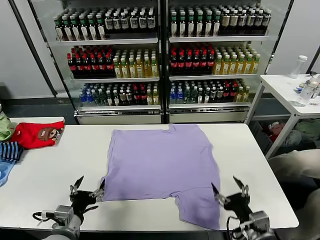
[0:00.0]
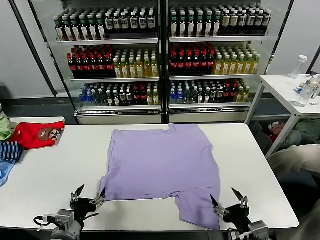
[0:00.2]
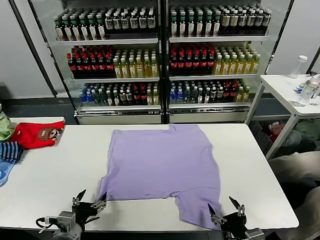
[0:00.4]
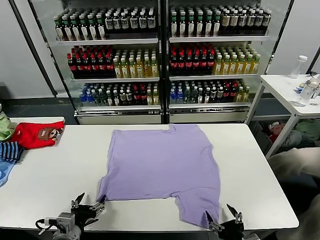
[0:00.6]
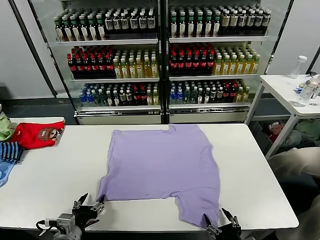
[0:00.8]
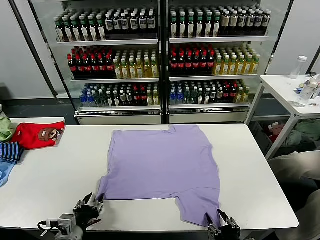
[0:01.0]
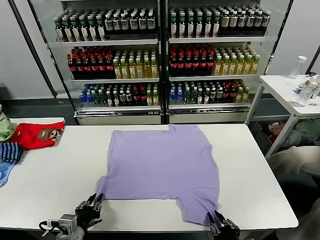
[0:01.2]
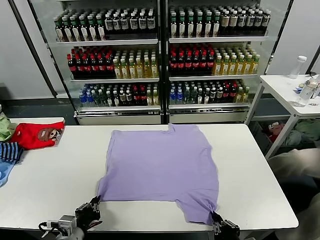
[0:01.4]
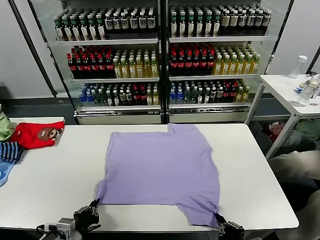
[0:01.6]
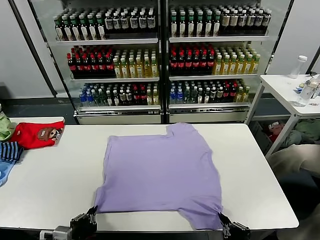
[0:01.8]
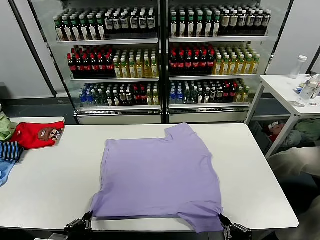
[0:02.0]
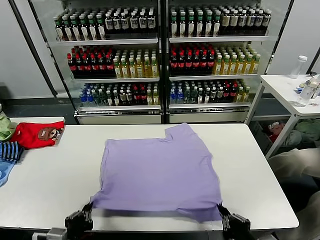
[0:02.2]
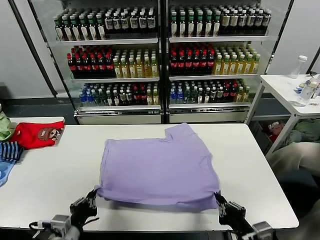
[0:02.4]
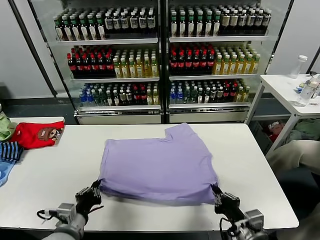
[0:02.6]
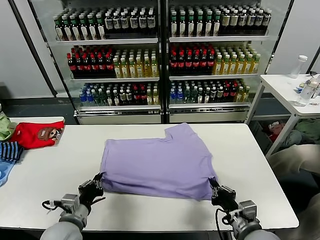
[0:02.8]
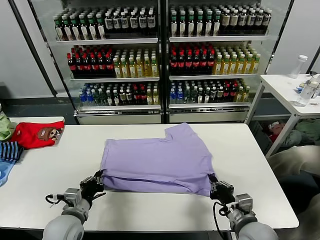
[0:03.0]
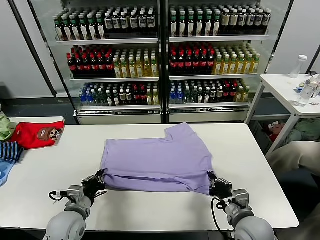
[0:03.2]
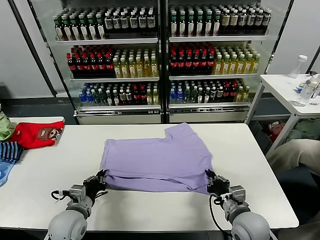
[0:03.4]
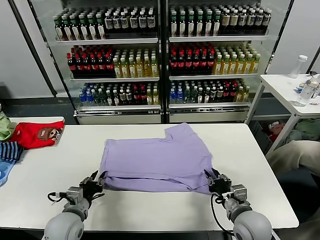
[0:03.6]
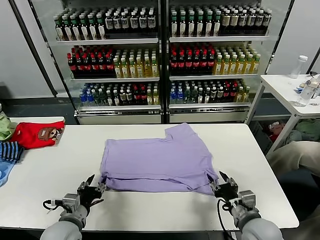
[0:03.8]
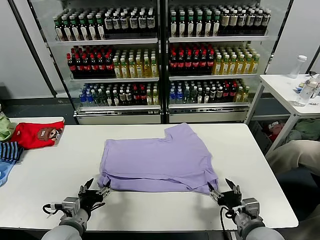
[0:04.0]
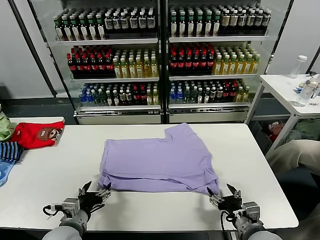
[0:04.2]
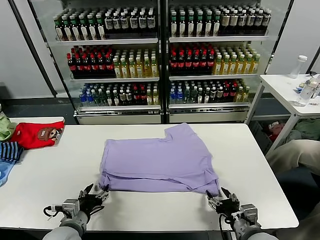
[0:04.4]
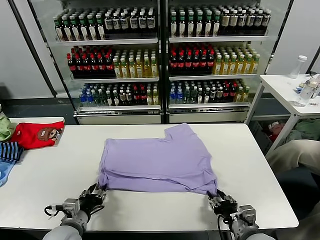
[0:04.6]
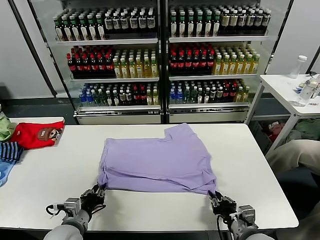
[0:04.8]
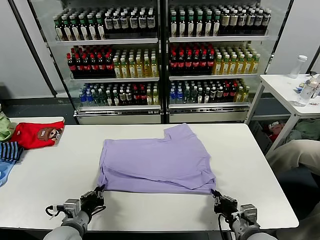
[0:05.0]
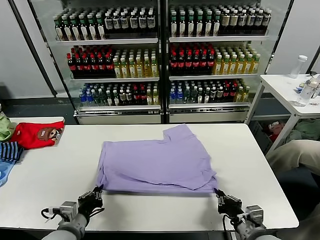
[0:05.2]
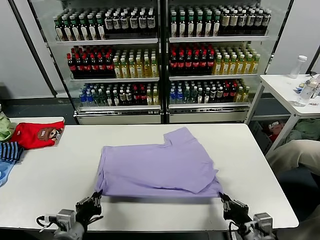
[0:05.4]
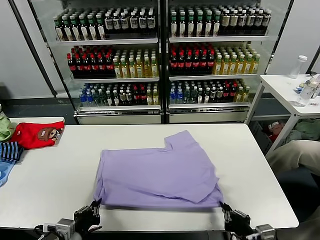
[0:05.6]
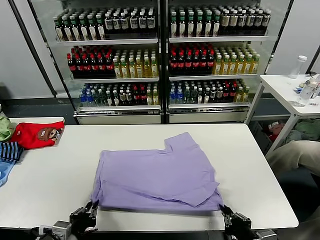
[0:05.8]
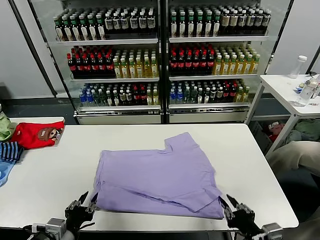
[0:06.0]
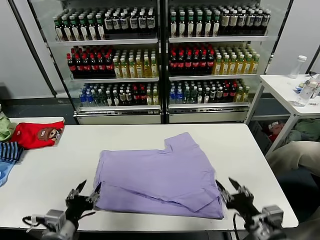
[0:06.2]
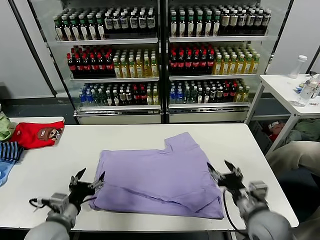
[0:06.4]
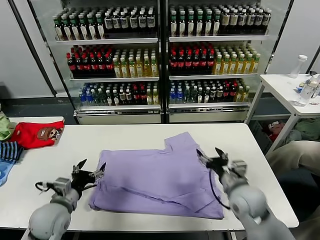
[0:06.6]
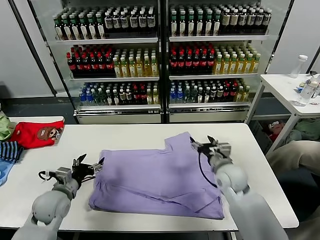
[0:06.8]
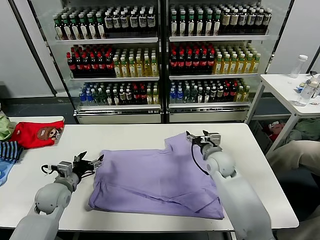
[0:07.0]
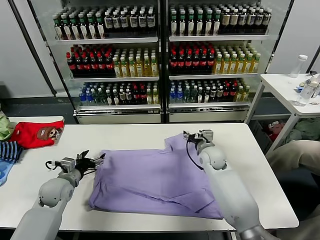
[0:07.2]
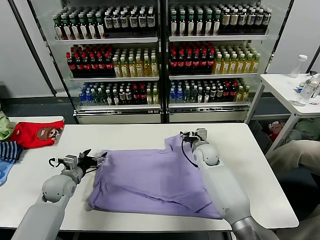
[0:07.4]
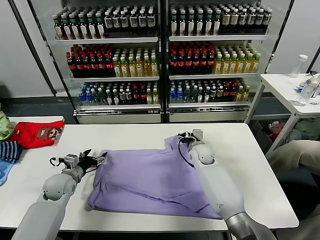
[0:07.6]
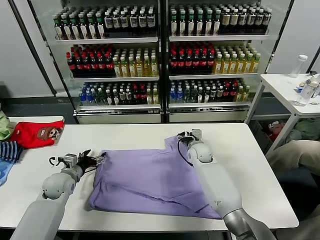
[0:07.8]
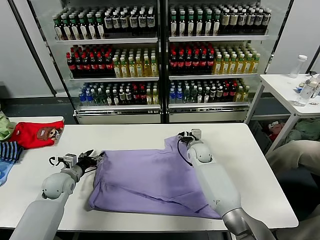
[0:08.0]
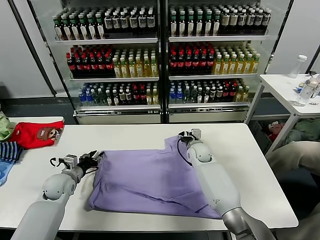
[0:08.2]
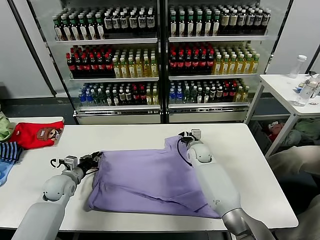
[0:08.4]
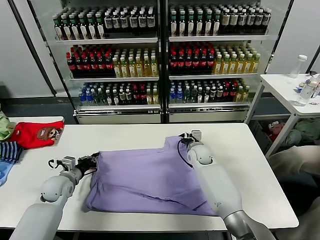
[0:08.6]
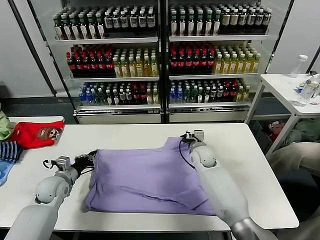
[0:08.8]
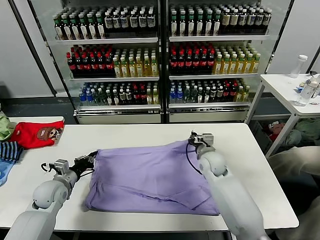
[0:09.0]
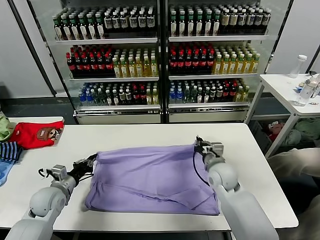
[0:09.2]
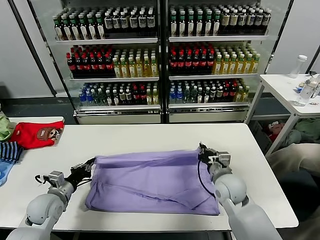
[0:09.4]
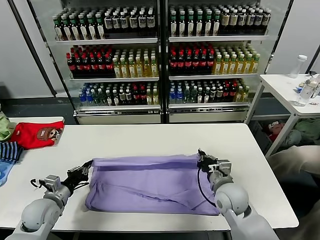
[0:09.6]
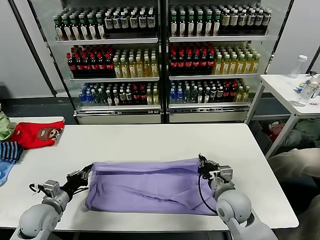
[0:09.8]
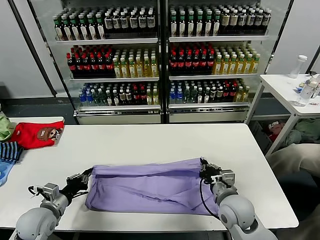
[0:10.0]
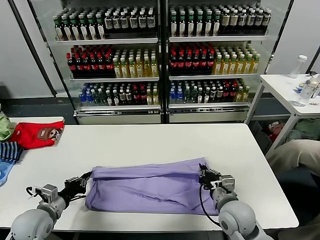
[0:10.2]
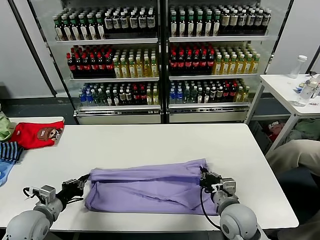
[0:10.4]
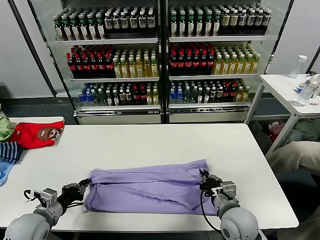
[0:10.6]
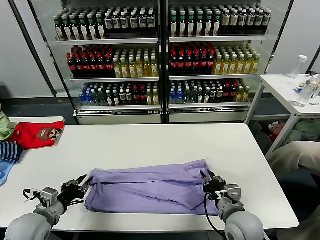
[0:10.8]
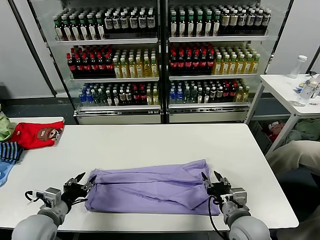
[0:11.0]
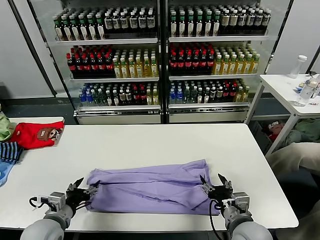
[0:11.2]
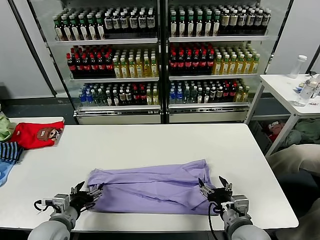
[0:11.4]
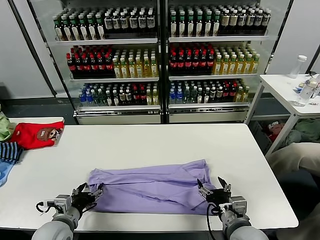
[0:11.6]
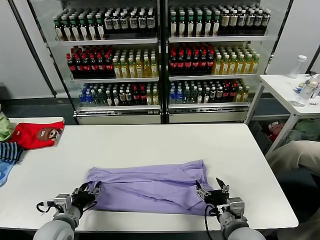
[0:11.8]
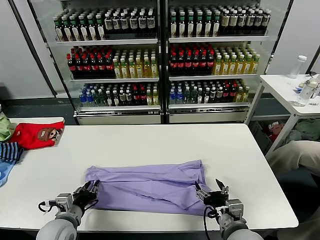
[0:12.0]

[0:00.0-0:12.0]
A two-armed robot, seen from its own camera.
Task of the whole recording: fold and organize the clothes.
Step, 0:00.0 to 0:01.4: use both grippers simultaneously to clamp the lower edge of the clothing fabric.
Step, 0:01.6 to 0:03.8: use both grippers to drag the lower edge of the fabric forward and fold it over the upper edge.
Step, 0:04.0 to 0:06.0: Drag the clothes downward with both gripper.
Step, 0:06.2 to 0:08.4: use both grippers simultaneously to clamp the upper edge of the clothing fabric.
Step, 0:08.8 to 0:10.8: use both grippers to drag the upper edge of the fabric backward and fold it over the lower edge.
0:01.6 to 0:03.0: Both grippers move forward, approximately 10 cm.
0:03.0 to 0:04.4: The right gripper opens its fingers; the left gripper opens its fingers.
0:04.4 to 0:06.0: The left gripper goes about 5 cm backward, and closes, then opens again. The right gripper goes roughly 10 cm upward and backward, and closes, then reopens.
0:06.0 to 0:07.6: The right gripper goes some 40 cm forward, and opens up, while the left gripper is displaced forward by some 25 cm, and opens its fingers.
0:07.6 to 0:09.0: The right gripper travels backward by about 10 cm, and closes. Meanwhile the left gripper closes its fingers.
0:09.0 to 0:10.4: The left gripper is displaced backward by about 10 cm. The right gripper heads backward, covering some 20 cm.
0:10.4 to 0:12.0: The left gripper shifts some 10 cm to the right, and opens its fingers. The right gripper travels backward by about 5 cm, and opens.

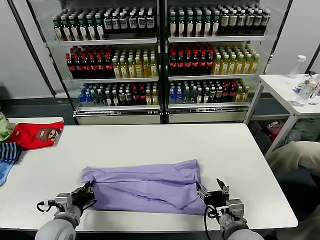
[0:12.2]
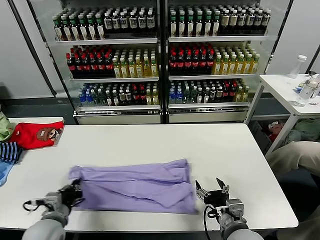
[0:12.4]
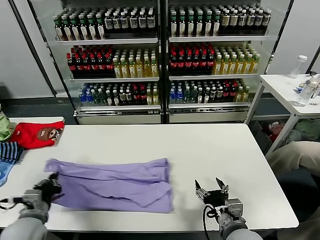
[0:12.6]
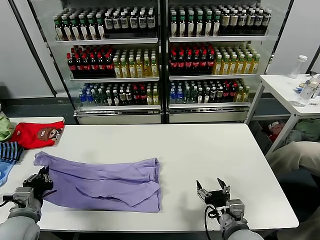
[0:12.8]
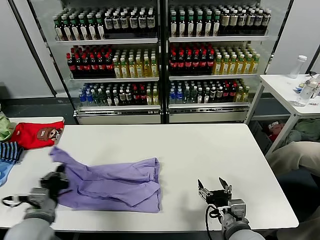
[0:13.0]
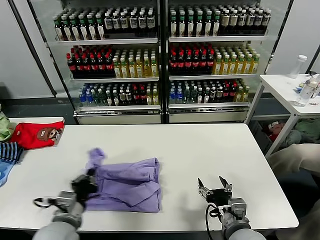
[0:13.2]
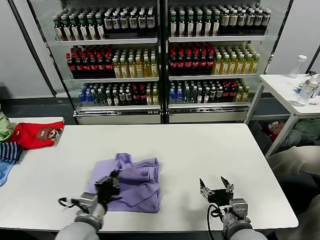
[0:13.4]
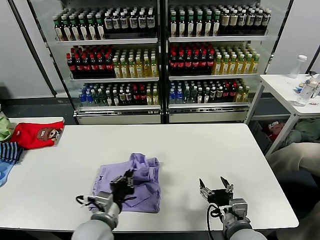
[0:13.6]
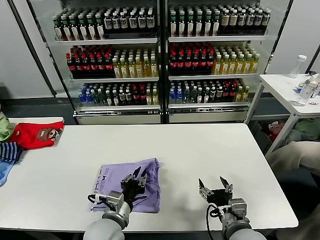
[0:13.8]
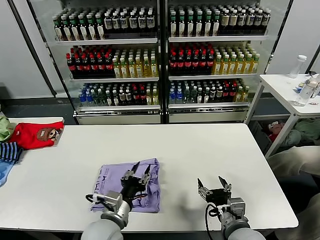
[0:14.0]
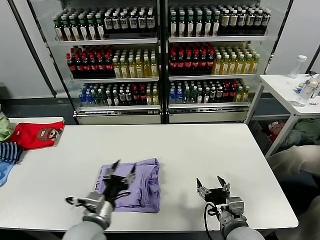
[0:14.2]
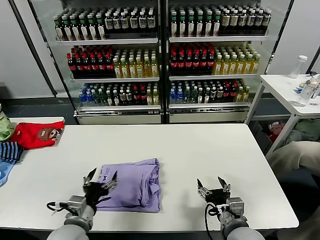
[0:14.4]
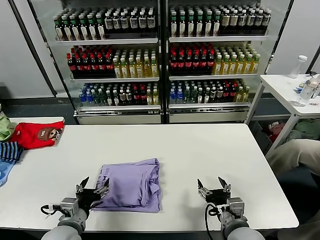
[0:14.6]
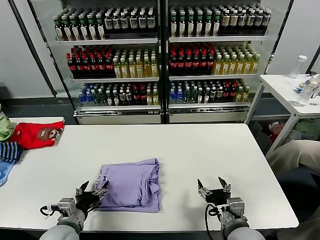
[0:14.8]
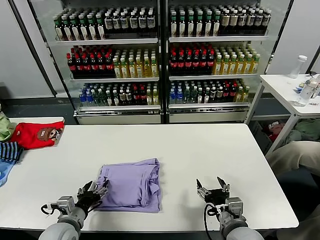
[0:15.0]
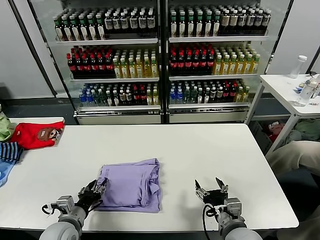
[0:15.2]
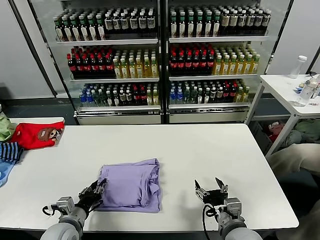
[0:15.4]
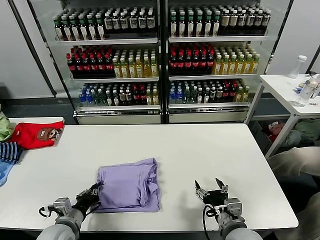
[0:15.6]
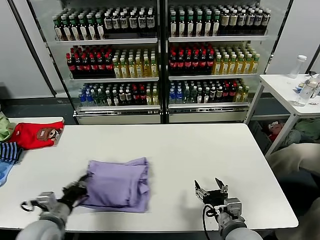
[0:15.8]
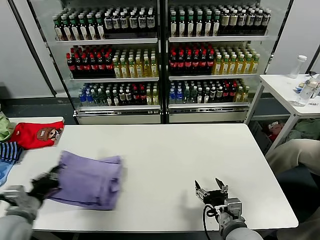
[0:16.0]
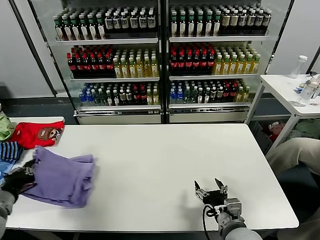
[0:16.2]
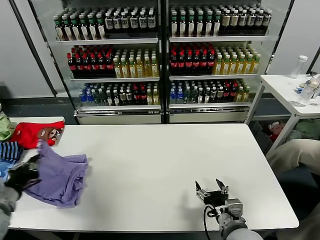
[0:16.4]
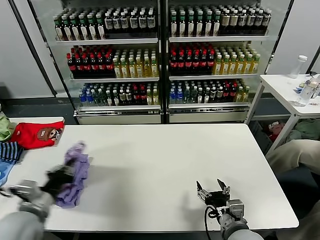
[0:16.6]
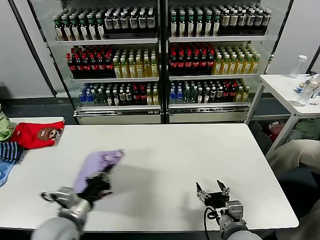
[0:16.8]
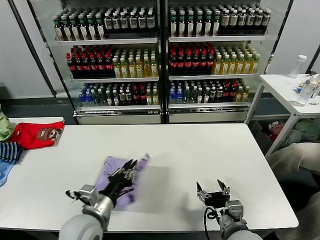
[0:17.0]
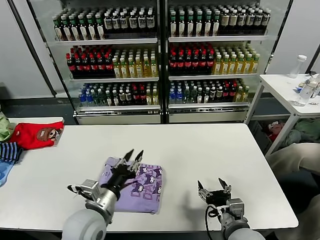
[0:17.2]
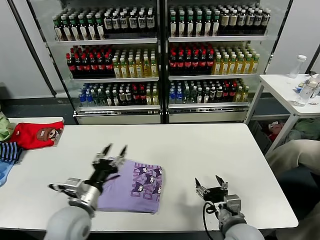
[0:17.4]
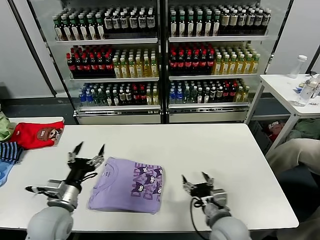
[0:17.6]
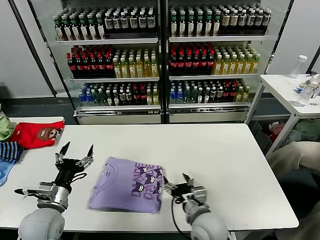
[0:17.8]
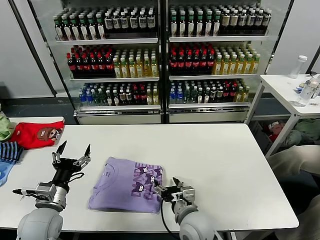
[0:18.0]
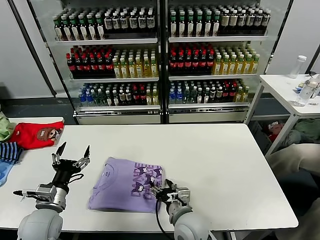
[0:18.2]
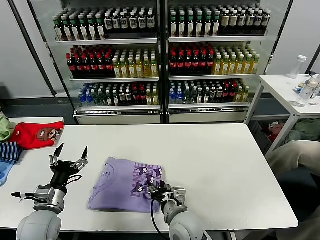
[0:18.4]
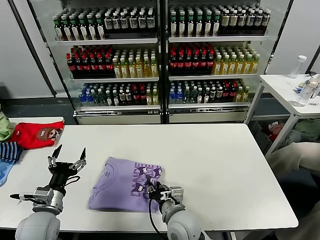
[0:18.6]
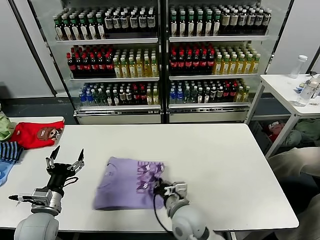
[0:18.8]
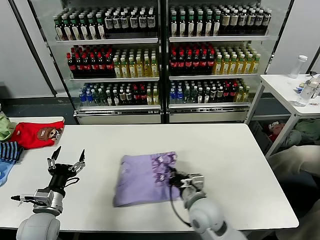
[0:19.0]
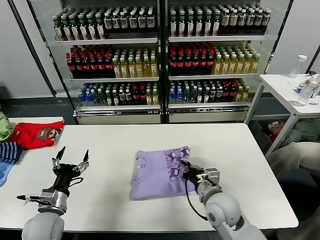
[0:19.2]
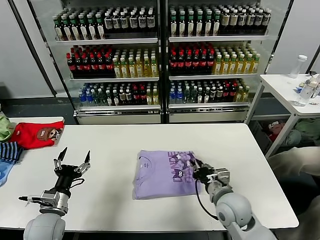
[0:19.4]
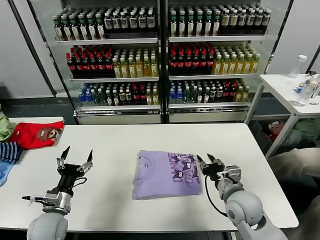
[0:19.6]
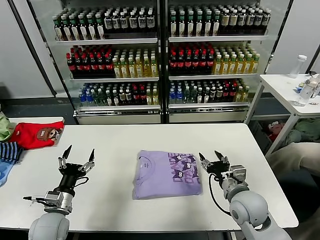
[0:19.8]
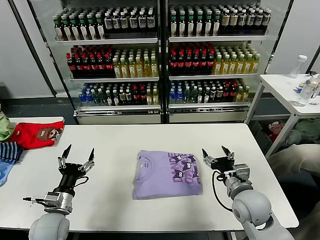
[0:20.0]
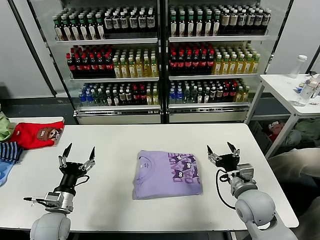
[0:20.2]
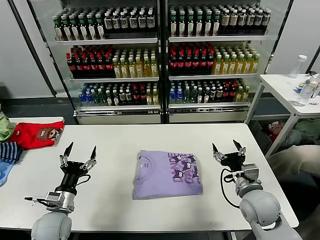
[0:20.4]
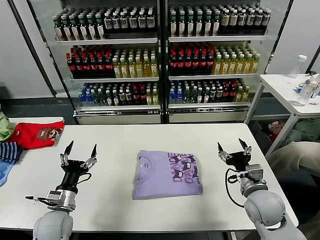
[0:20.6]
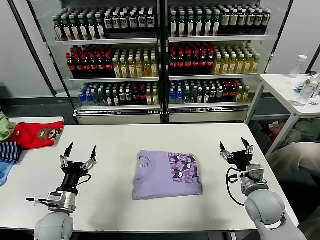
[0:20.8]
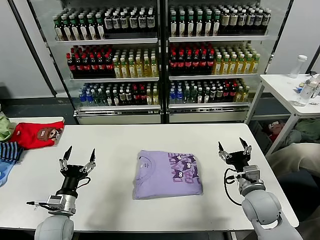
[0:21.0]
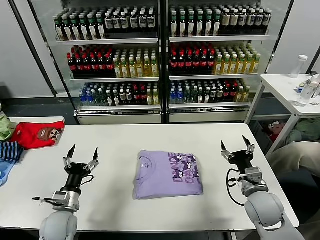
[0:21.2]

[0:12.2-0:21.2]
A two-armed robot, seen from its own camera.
Task of the whole recording: fold and organize the clothes.
Step, 0:12.4 to 0:14.0: use the left gripper to drag the left edge of the fabric to the left and folds it over the right edge.
Step, 0:14.2 to 0:17.4: Flip the folded clothes over with left gripper.
Step, 0:17.6 to 0:19.6: Drag the clothes to the center of the table.
0:12.2 to 0:13.8: The left gripper shifts about 15 cm to the right.
0:13.8 to 0:15.2: The left gripper goes roughly 15 cm to the left, and opens its fingers.
0:15.2 to 0:16.6: The left gripper is displaced upward and to the left by about 15 cm, and closes its fingers.
0:16.6 to 0:18.2: The right gripper travels to the left and forward by approximately 15 cm. The left gripper heads downward, covering approximately 5 cm, goes to the right and returns, approximately 20 cm each way, and opens its fingers.
0:18.2 to 0:19.8: The right gripper moves to the right, some 15 cm, and closes and opens again.
0:19.8 to 0:21.2: The right gripper moves to the right, approximately 5 cm.
